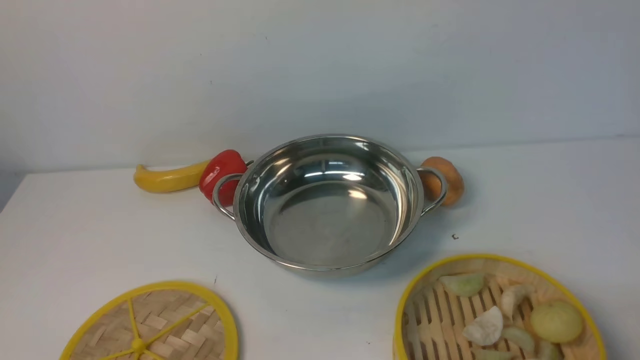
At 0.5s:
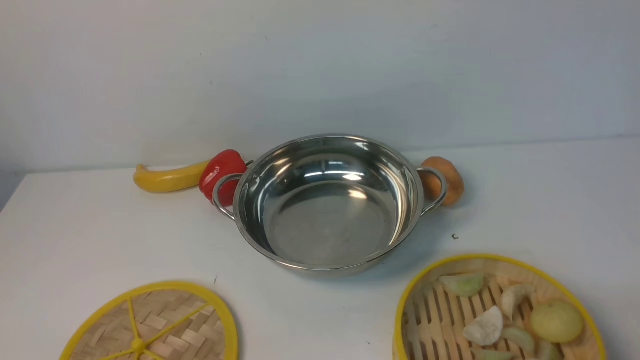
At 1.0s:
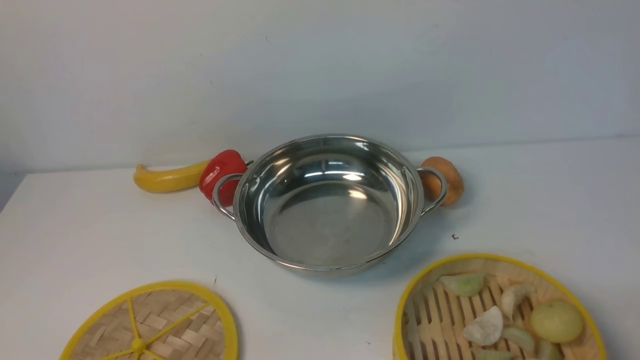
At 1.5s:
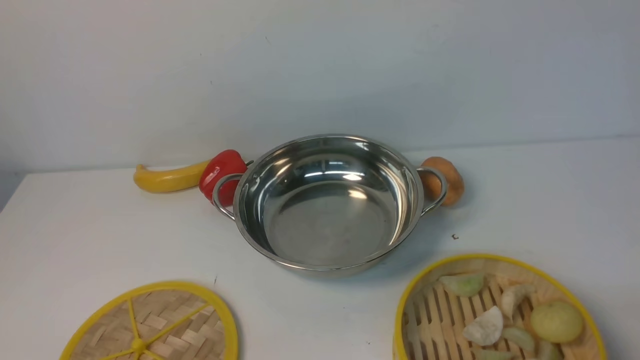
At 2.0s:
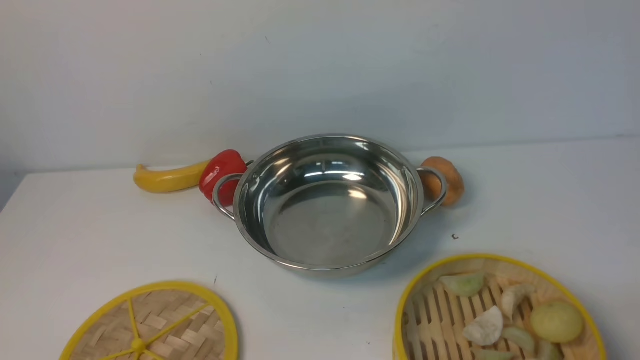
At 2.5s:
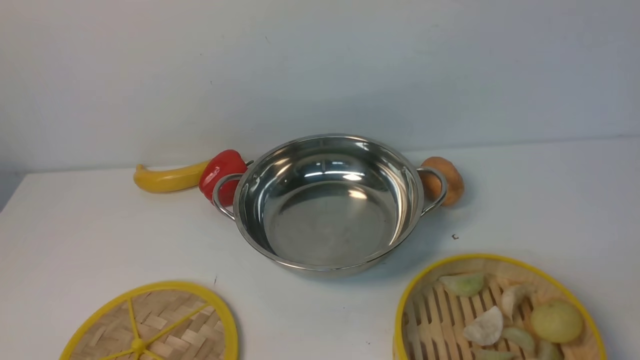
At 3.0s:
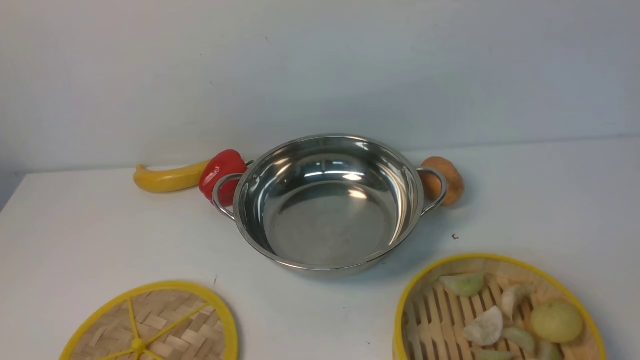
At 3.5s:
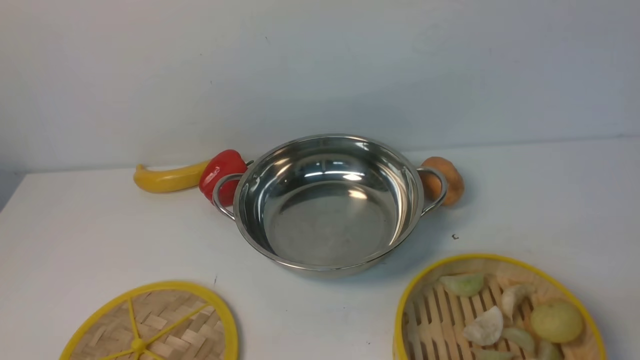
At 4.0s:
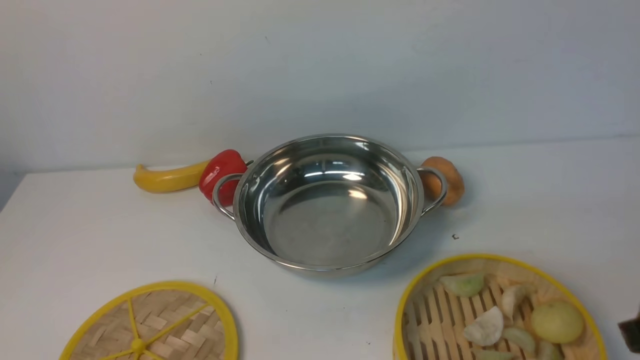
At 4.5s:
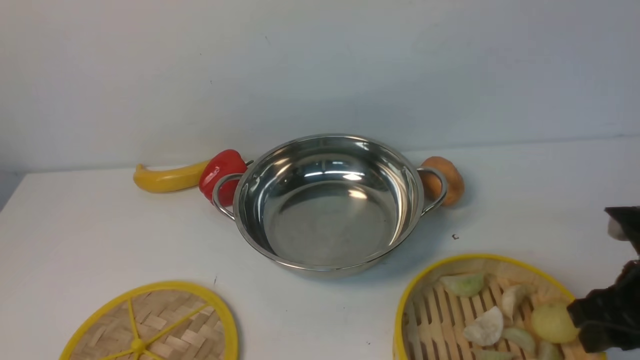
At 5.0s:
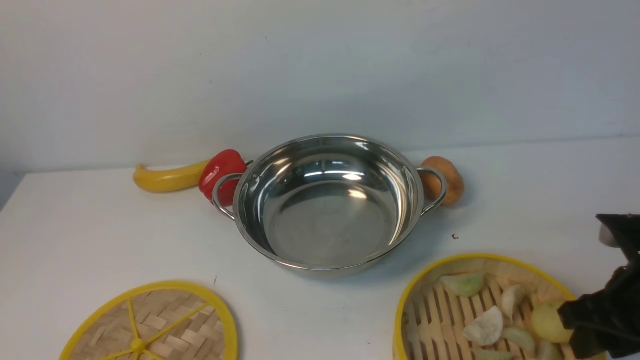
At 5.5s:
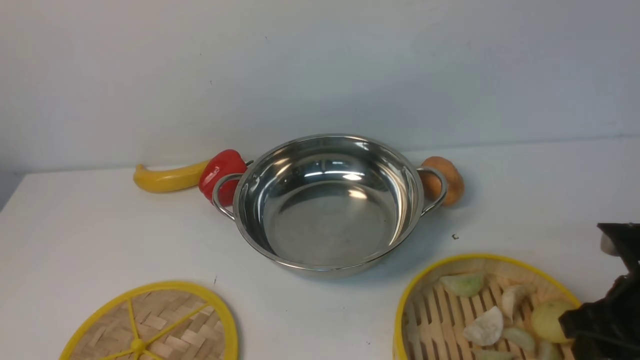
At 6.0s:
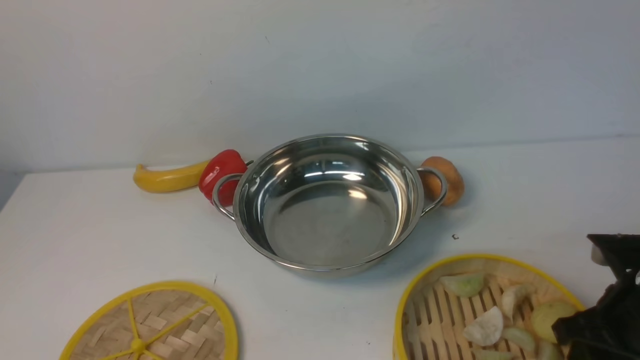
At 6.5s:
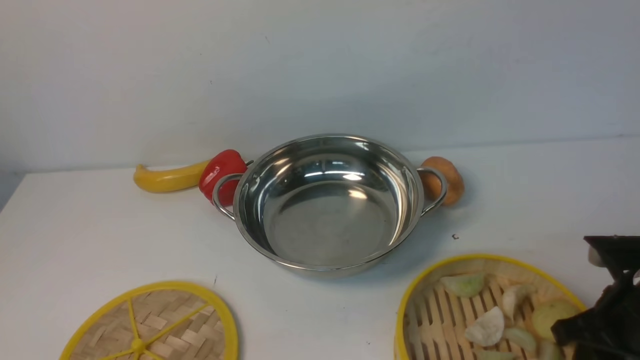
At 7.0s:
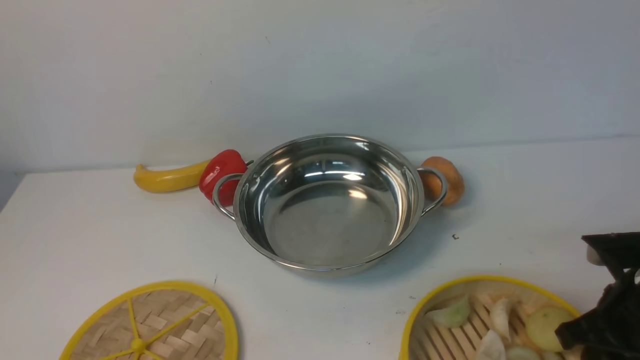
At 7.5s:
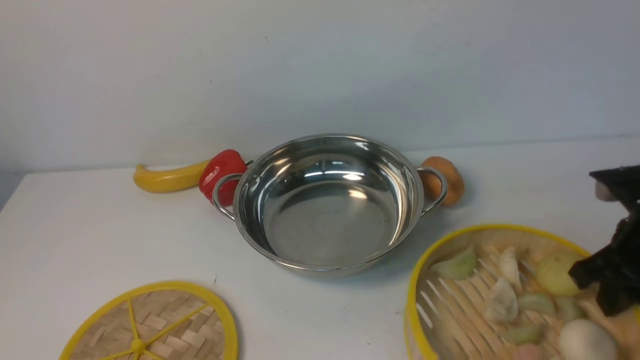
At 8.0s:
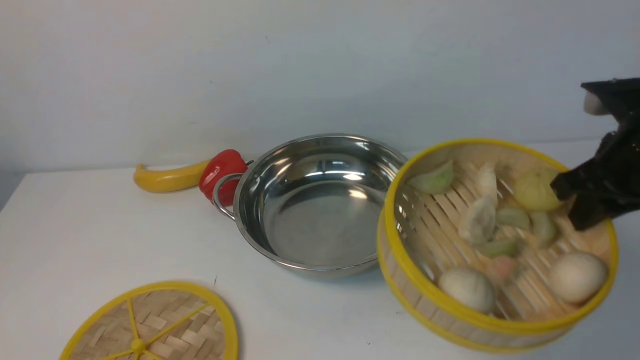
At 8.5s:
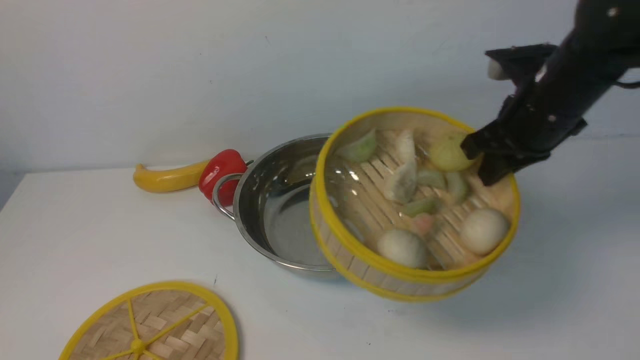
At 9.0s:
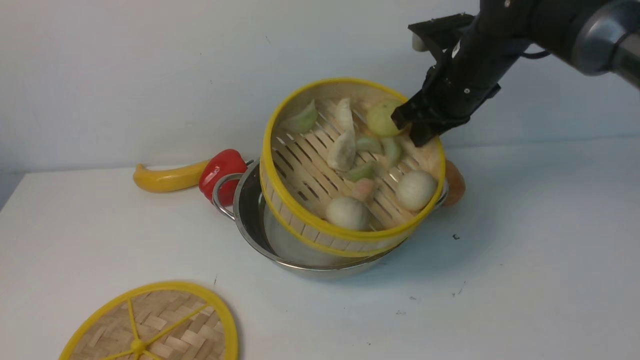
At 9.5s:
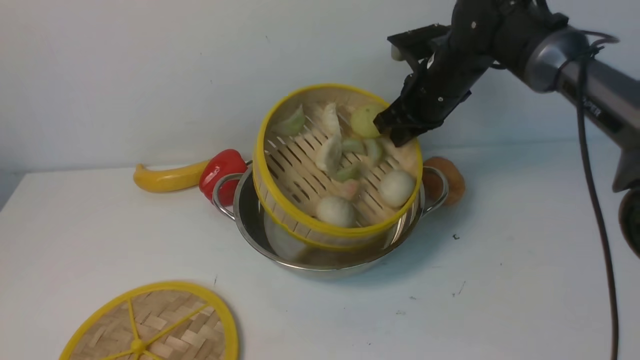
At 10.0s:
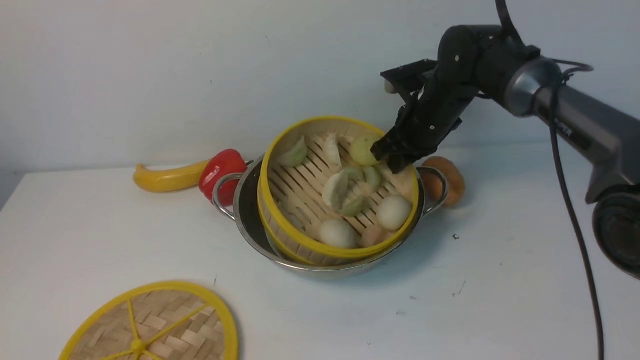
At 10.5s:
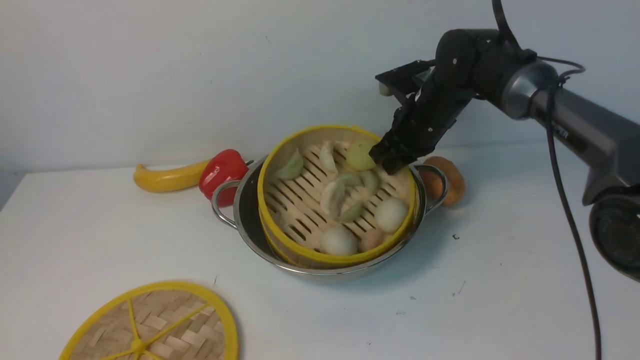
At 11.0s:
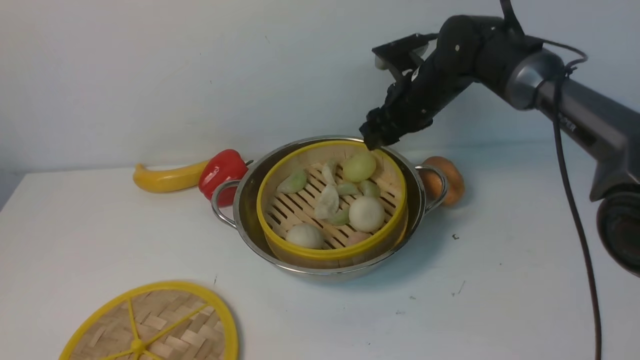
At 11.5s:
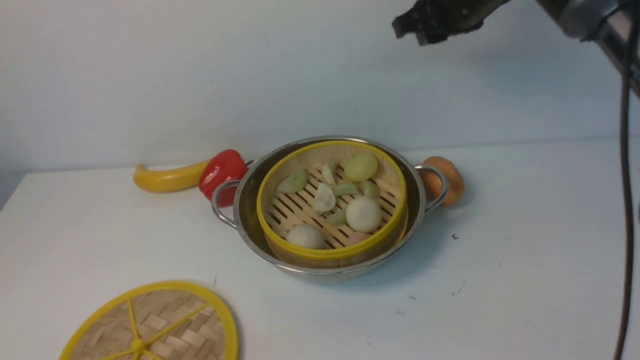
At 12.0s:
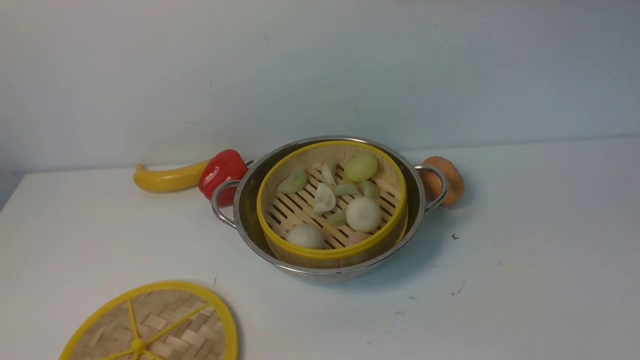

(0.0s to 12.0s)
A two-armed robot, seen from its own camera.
Task of the whole recording: place the steamer in the pot on the white table, and put the lid on the steamer.
Step, 0.0s - 7.5s: use the right arm to lift the steamer closest to it.
Step, 8.0s - 11.0s: use the right arm to put the steamer into the iron steamer pot in the middle.
0.0s - 2.0s: Both grippers stay put.
4.0s - 6.0s: The right gripper heads downward and forward, covering approximately 10 cm.
6.0s - 8.0s: The right gripper shifts approximately 15 cm upward and forward, and closes up.
8.0s - 10.0s: The right gripper shifts roughly 25 cm forward, to the left and downward.
10.0s - 12.0s: The right gripper moves upward, approximately 25 cm, and opens, then closes once more.

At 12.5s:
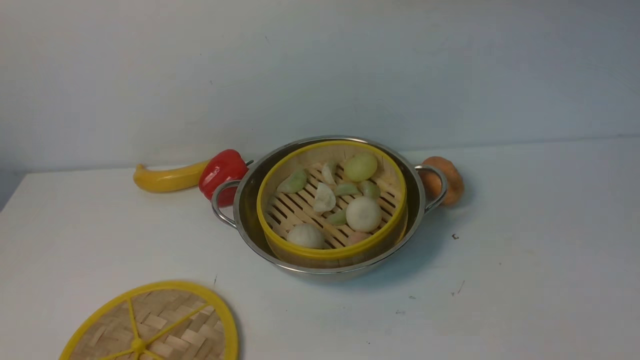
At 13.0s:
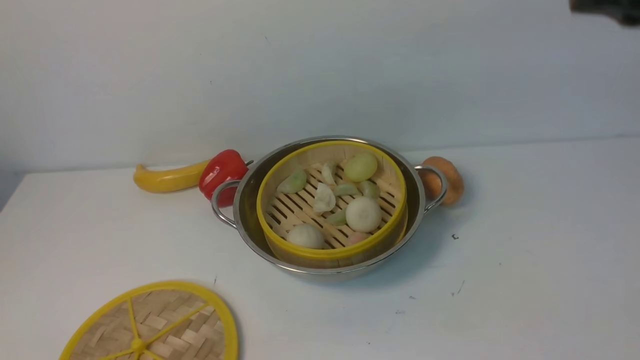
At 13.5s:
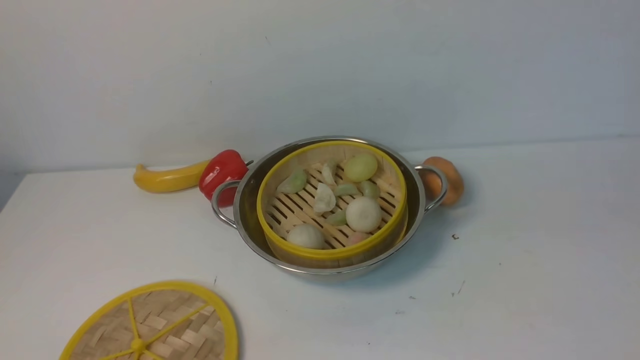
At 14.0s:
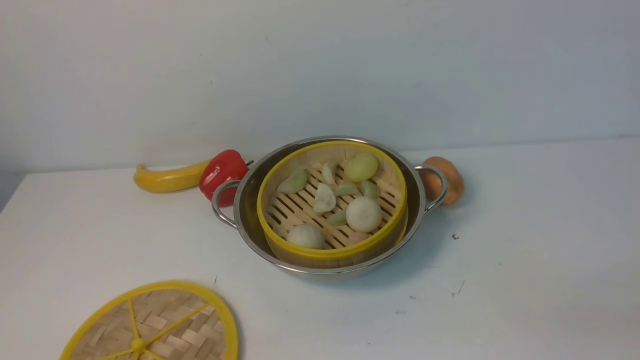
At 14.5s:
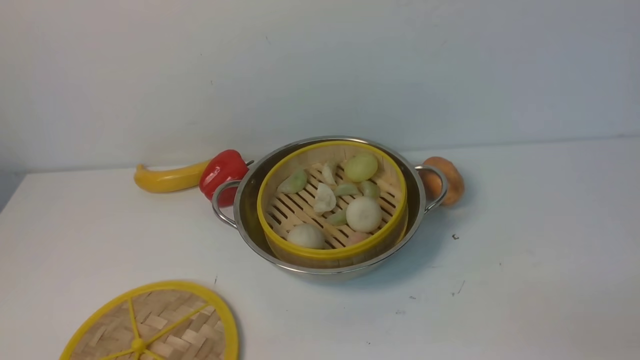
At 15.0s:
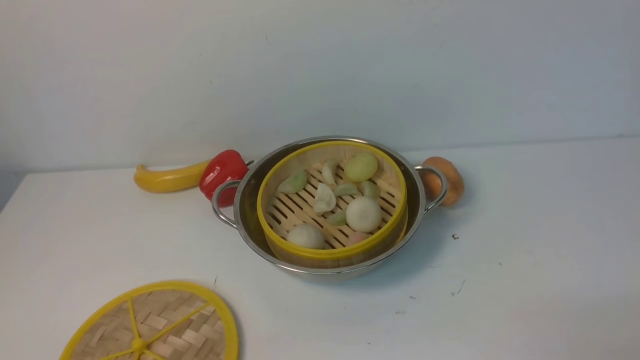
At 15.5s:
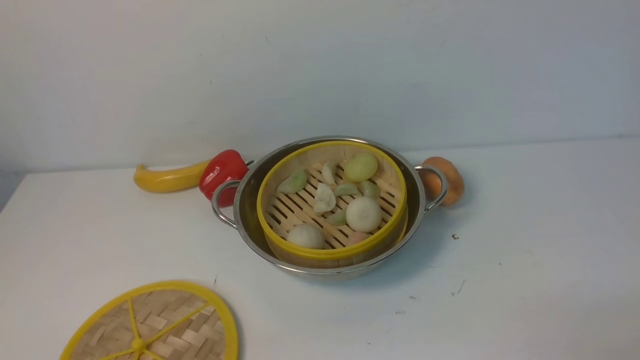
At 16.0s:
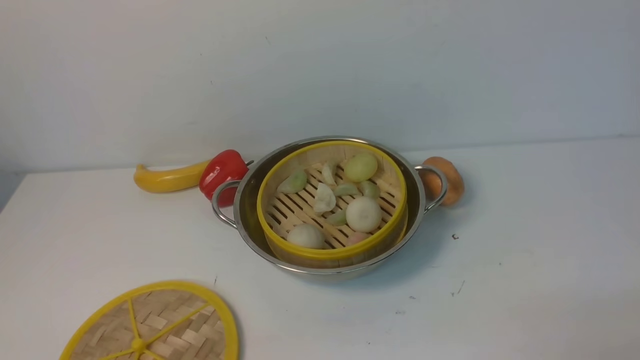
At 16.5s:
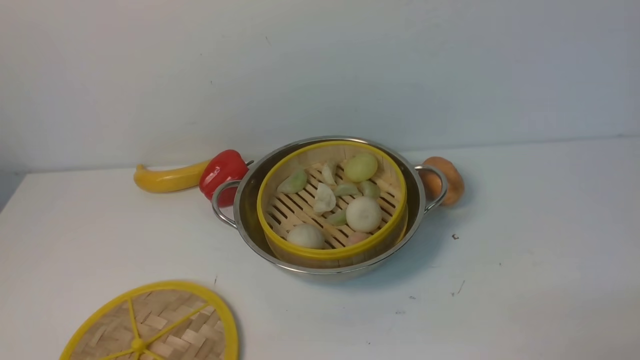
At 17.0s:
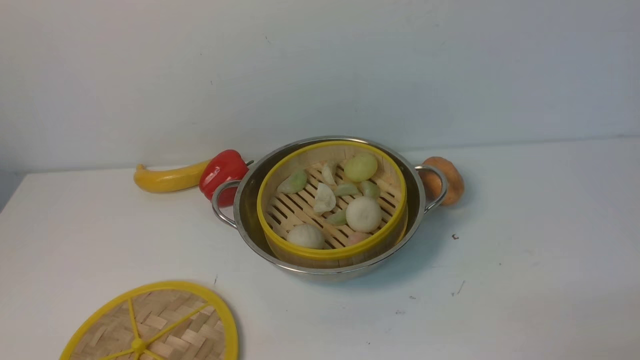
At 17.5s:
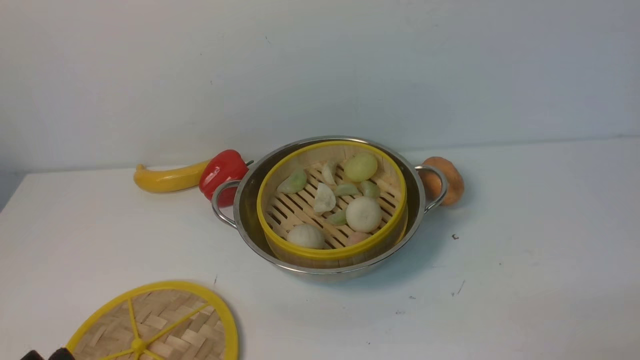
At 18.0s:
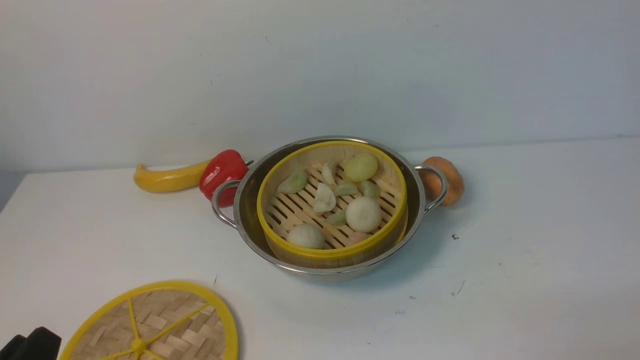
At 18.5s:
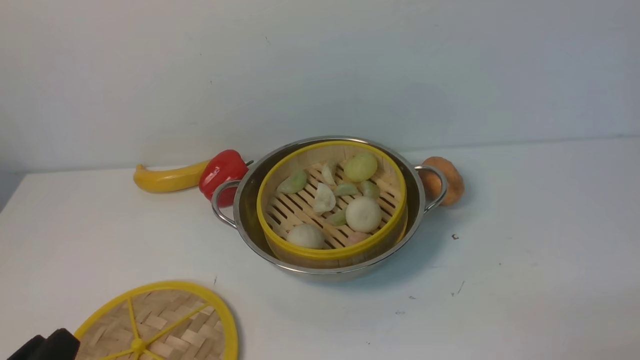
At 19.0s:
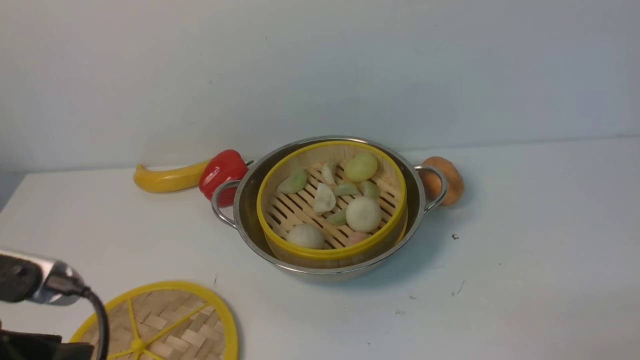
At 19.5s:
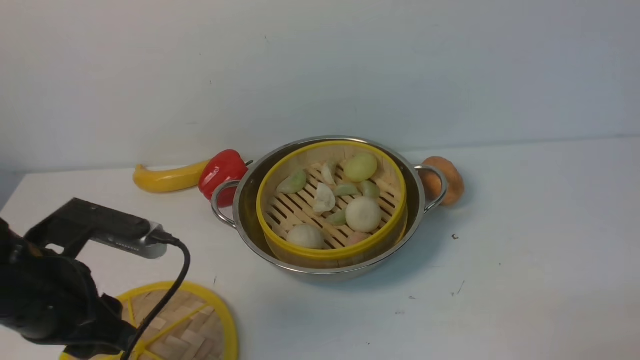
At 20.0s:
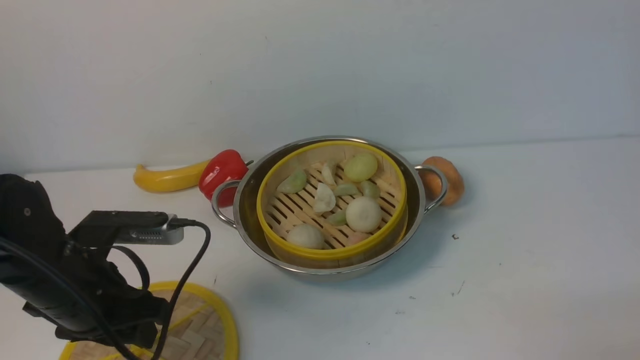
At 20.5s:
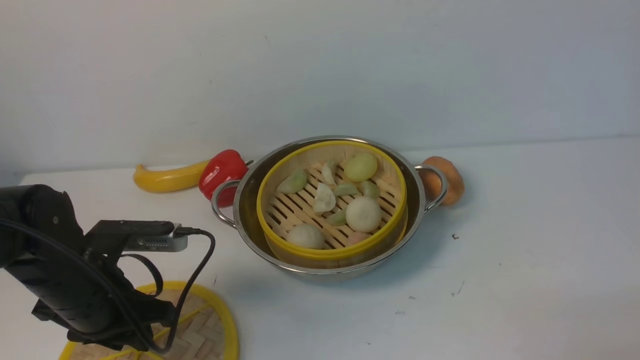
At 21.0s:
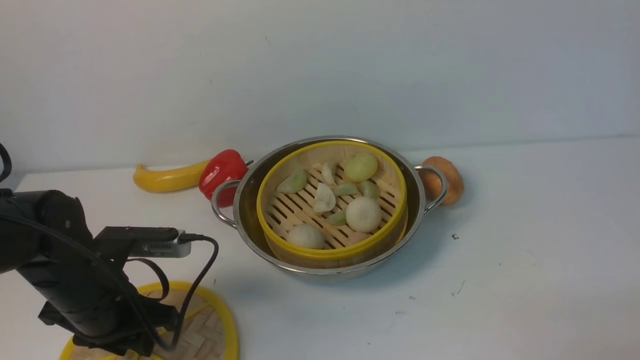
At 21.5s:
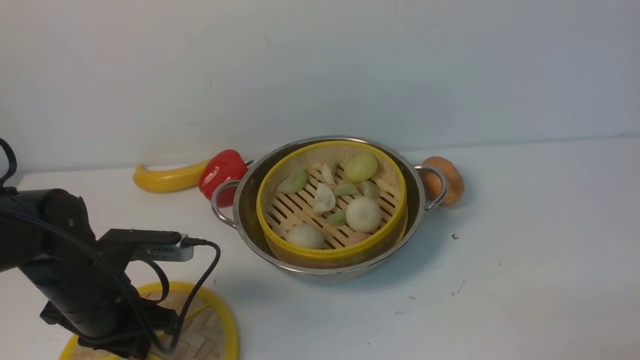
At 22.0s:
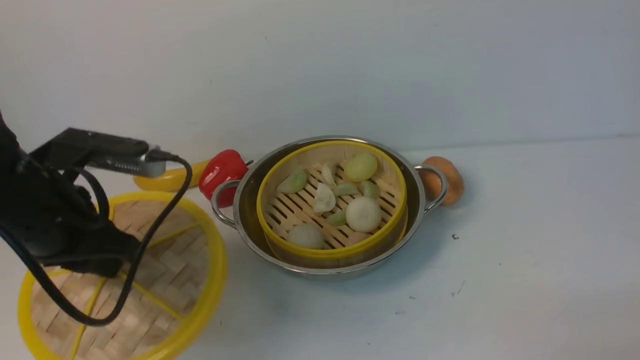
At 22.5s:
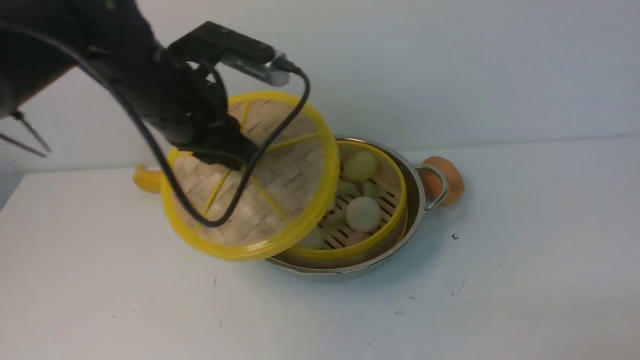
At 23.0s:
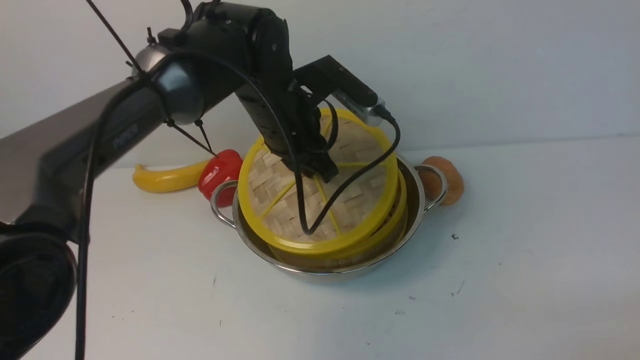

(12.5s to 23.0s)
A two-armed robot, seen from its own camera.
Task of the whole recording: place the steamer in the pot on the white table, and put the lid on the steamer.
Step, 12.5s - 22.0s: use the left arm to lift the lid of the steamer.
12.5s - 14.5s: The right gripper goes about 50 cm backward, downward and to the right, and opens.
16.5s - 19.0s: The left gripper moves upward and forward, about 15 cm.
19.0s - 21.0s: The left gripper heads forward and downward, covering some 20 cm, and opens, then closes once more.
21.0s - 23.0s: The left gripper goes some 25 cm to the right, forward and upward, and closes up.
